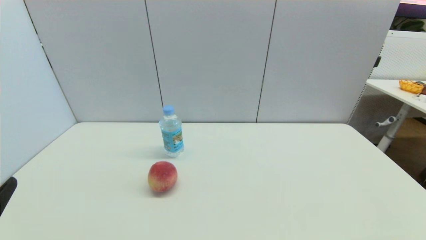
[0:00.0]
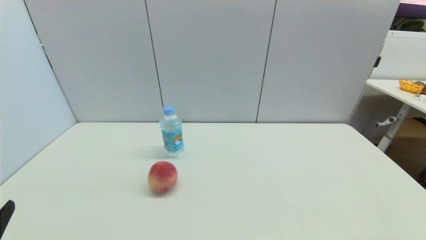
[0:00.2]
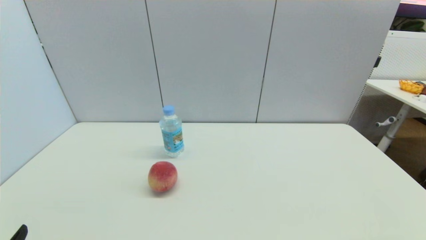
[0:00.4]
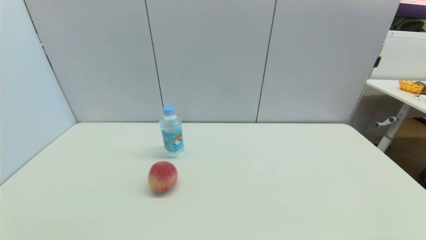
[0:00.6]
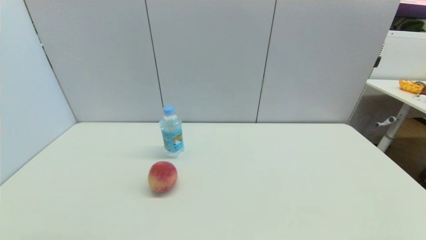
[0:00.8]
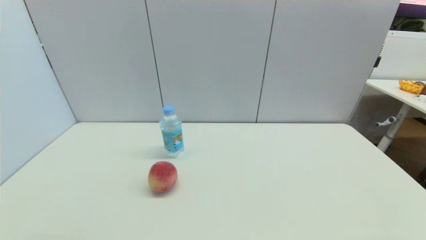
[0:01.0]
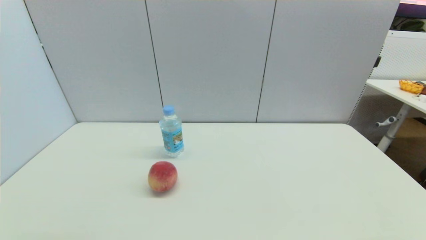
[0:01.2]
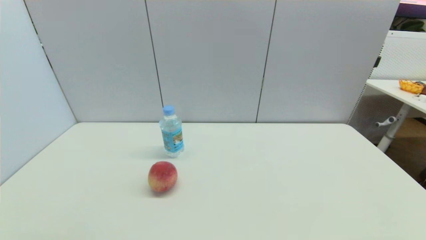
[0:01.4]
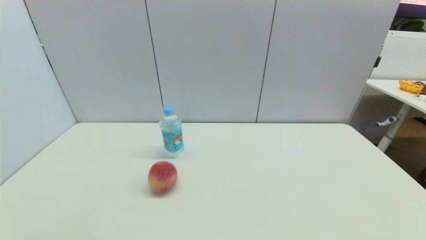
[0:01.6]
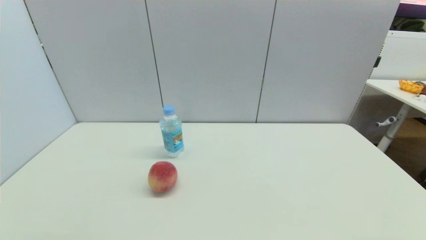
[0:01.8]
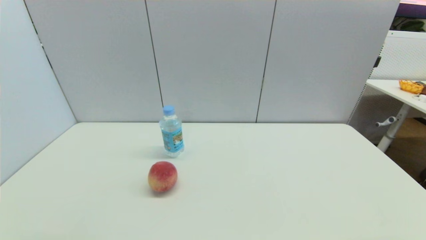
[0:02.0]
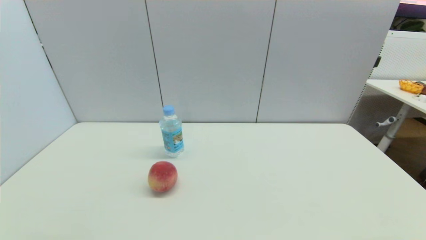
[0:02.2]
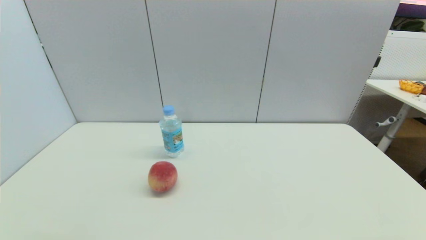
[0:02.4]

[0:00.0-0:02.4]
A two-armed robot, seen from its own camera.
0:01.2 to 0:02.4: Both grippers stay put.
